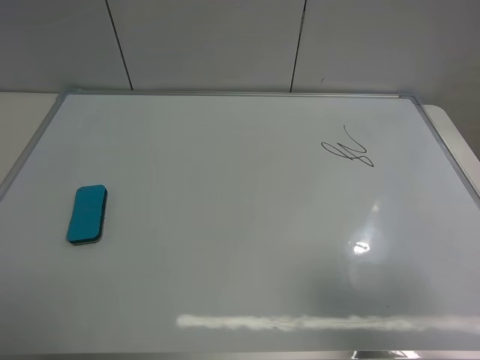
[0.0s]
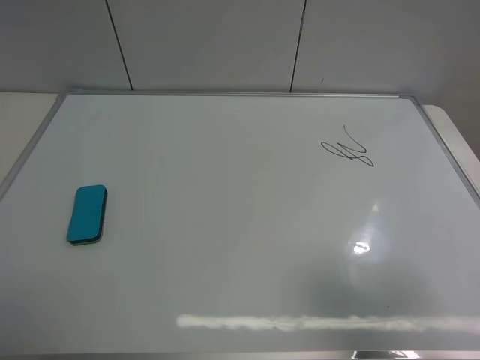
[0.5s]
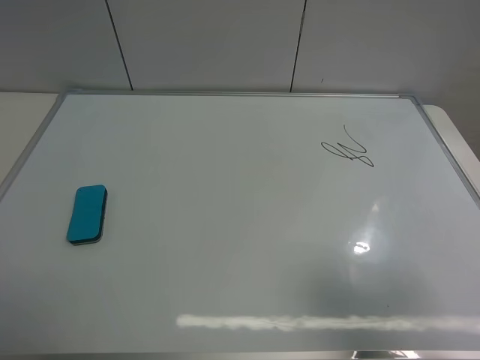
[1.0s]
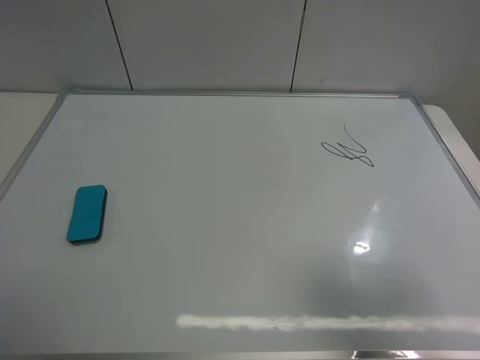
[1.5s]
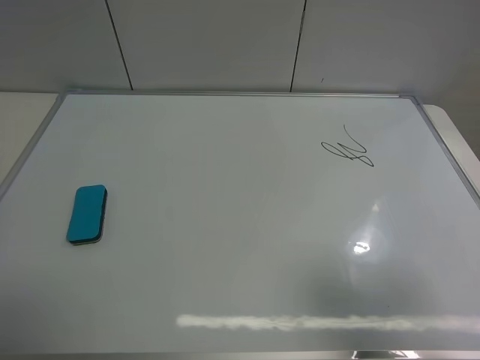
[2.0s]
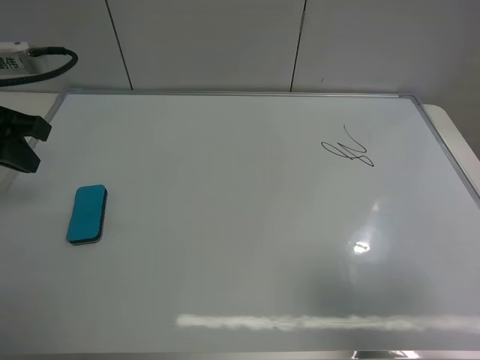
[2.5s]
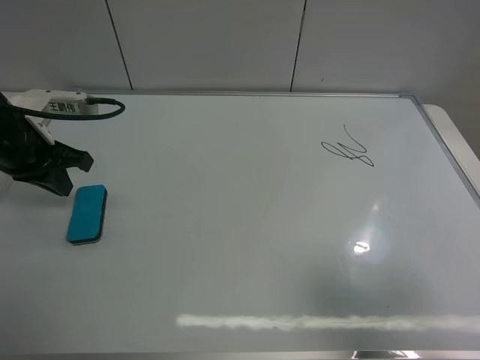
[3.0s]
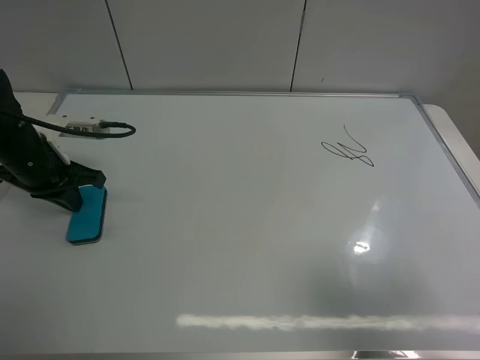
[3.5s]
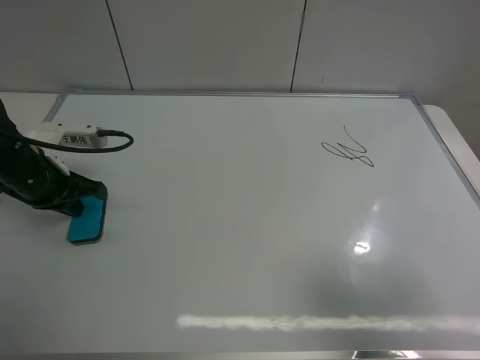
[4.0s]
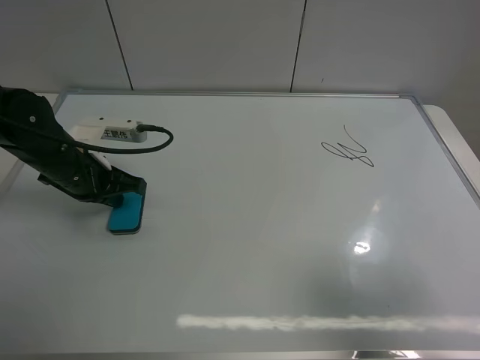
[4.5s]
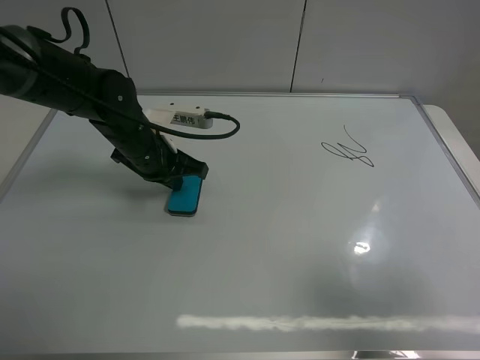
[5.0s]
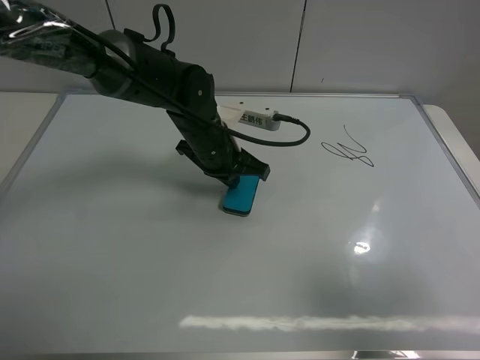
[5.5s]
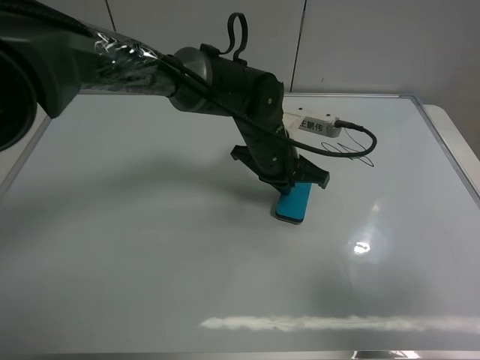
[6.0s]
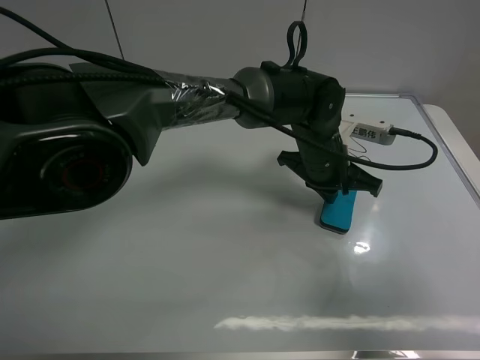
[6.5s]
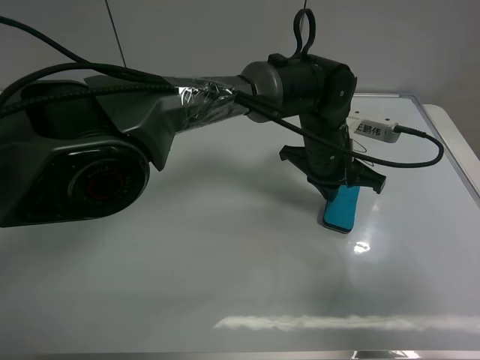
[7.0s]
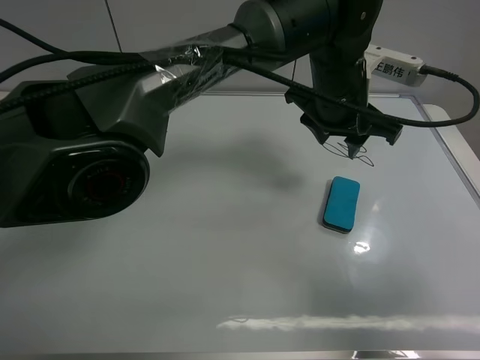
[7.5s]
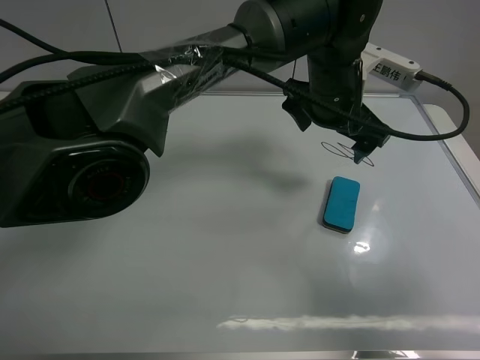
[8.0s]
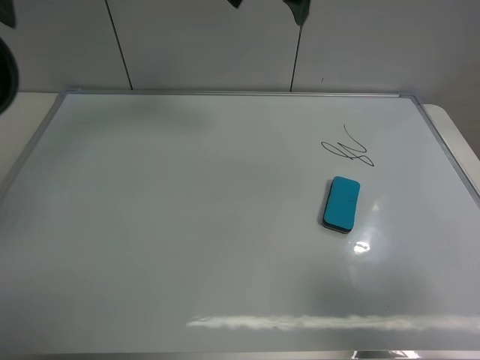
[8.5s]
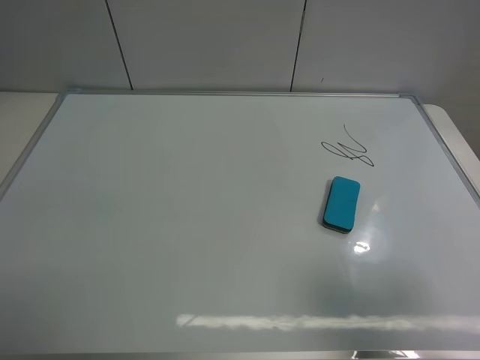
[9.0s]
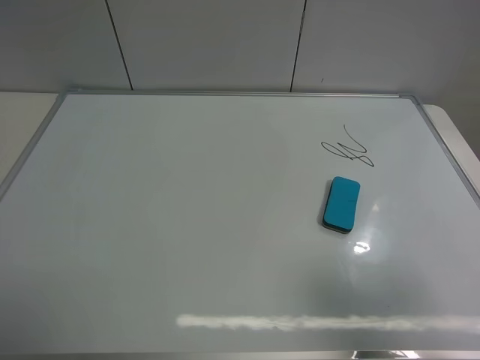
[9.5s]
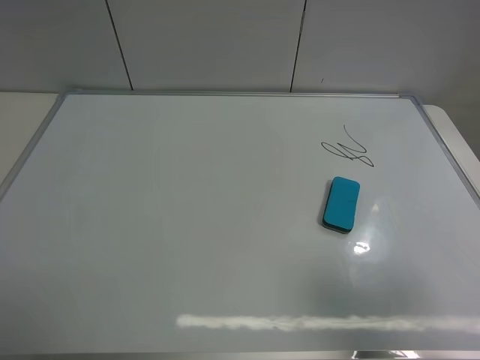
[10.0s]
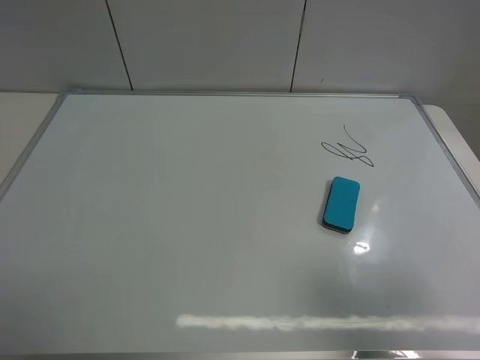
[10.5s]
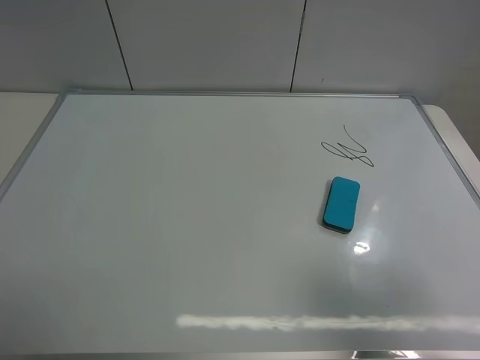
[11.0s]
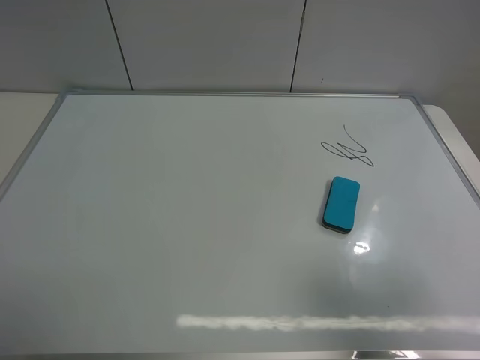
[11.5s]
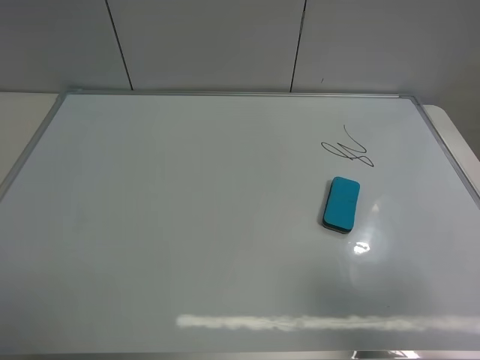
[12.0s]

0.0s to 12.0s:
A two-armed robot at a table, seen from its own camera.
Task of the whole recording: use the left gripper to place the eraser in the right, use the right gripper to pick up the eraser, wipe the notes on the whiteboard clean, and then put it down.
Step, 0.0s to 7.0s: Move the board eraser to the right of the whiteboard with left gripper.
2.0s to 4.0s: The left gripper is displaced downward and forward by about 25 cm.
4.0s to 6.0s: The left gripper shifts about 30 cm to the right.
6.0s to 8.0s: The left gripper is displaced upward and to the right by approximately 10 cm, and opens up.
8.0s to 10.0s: The left gripper heads to the left and backward, covering some 60 cm.

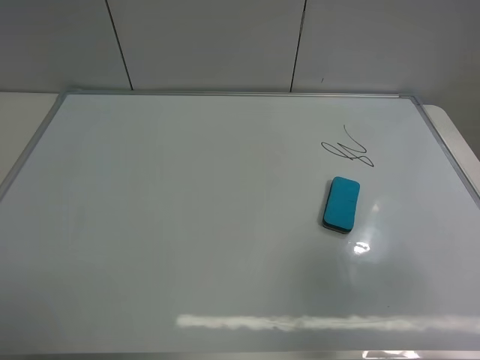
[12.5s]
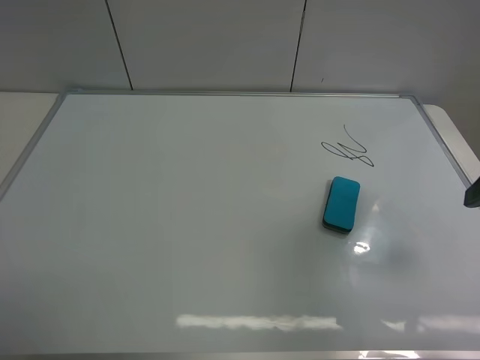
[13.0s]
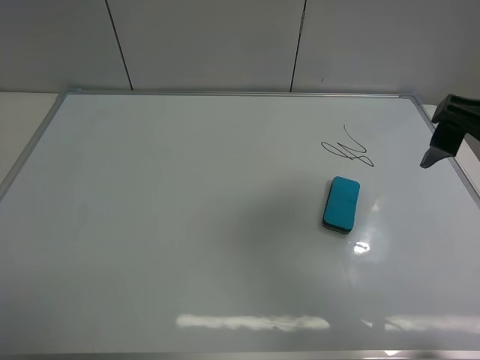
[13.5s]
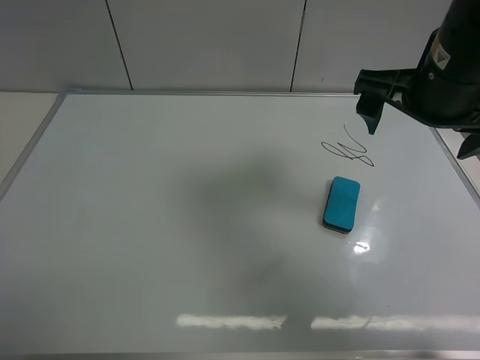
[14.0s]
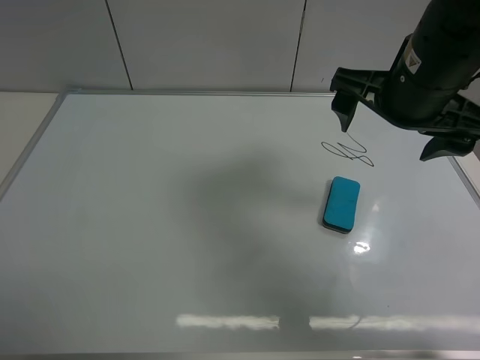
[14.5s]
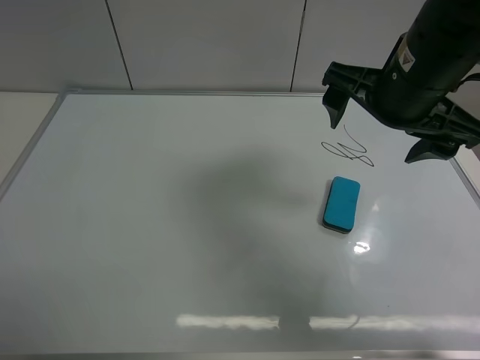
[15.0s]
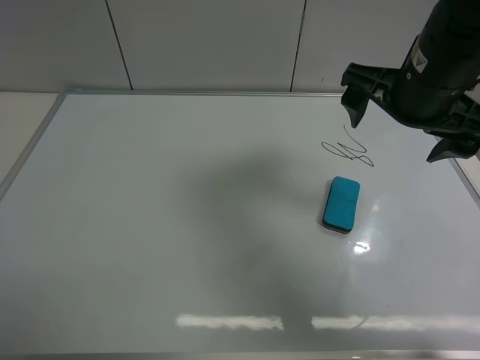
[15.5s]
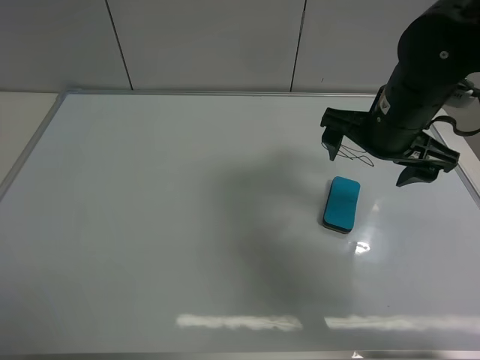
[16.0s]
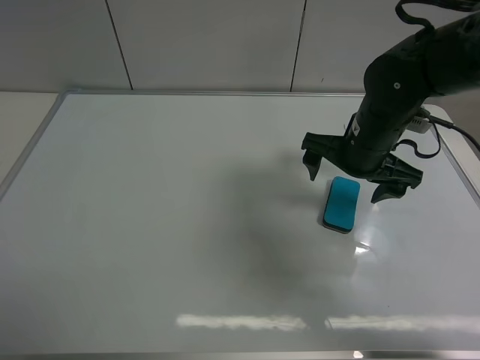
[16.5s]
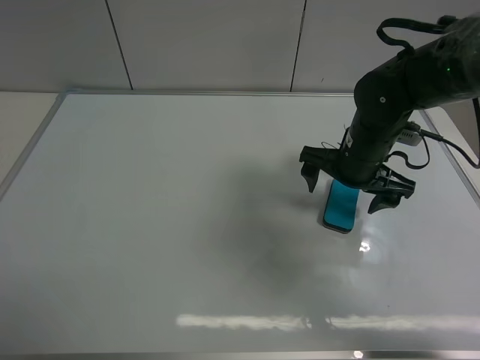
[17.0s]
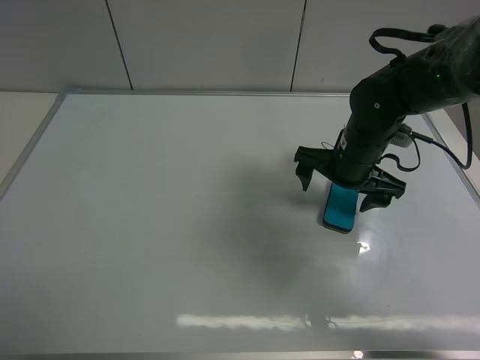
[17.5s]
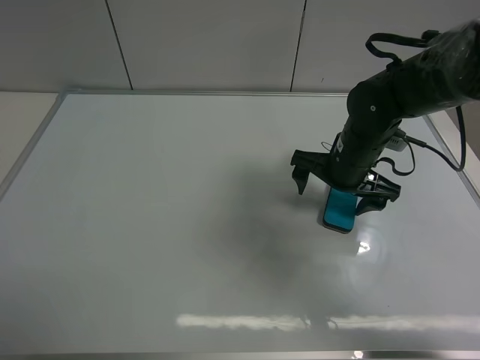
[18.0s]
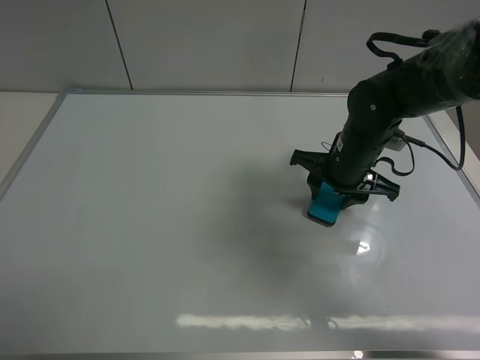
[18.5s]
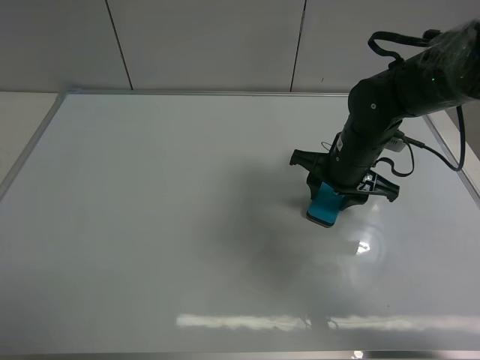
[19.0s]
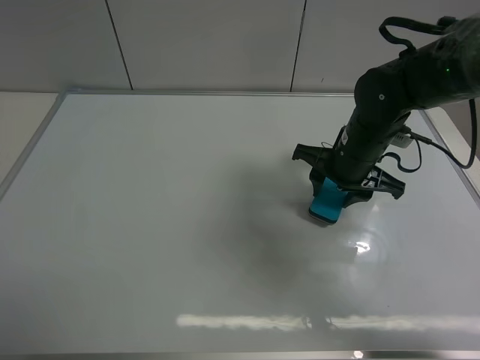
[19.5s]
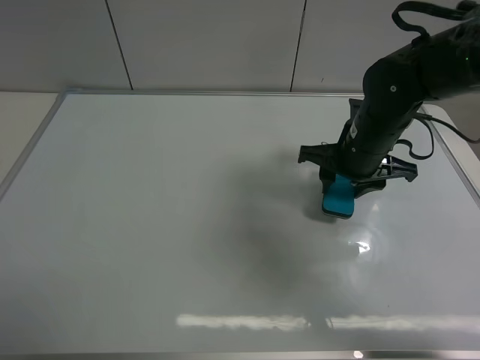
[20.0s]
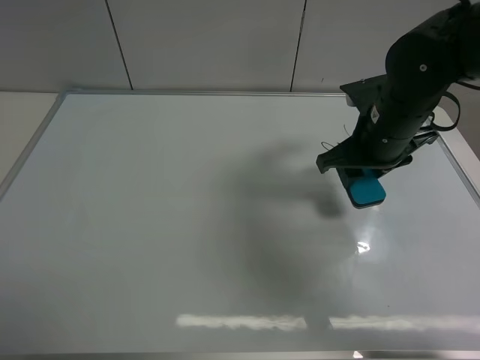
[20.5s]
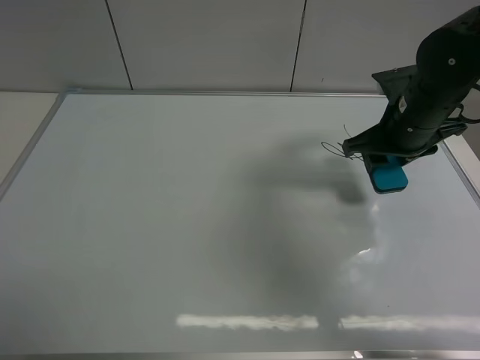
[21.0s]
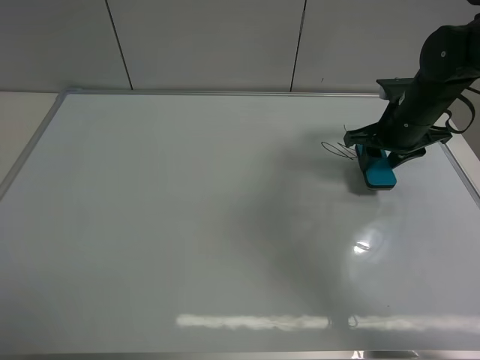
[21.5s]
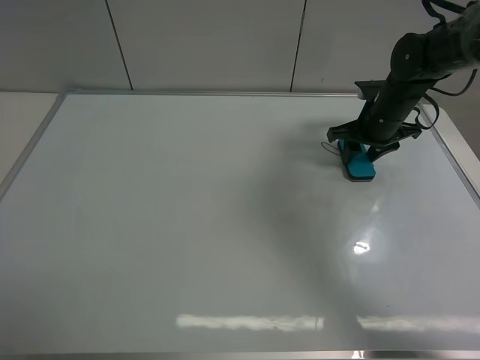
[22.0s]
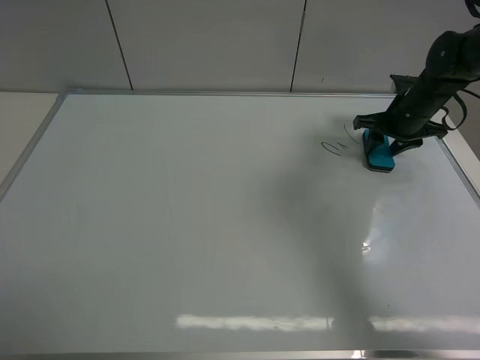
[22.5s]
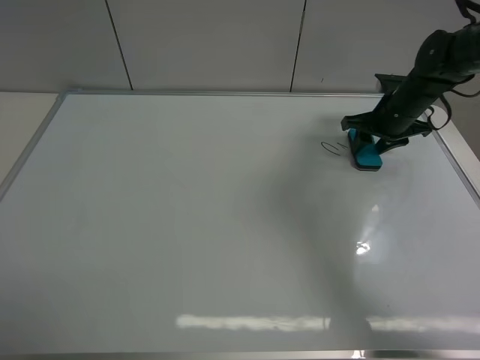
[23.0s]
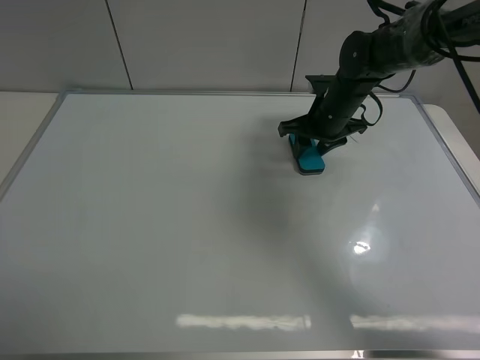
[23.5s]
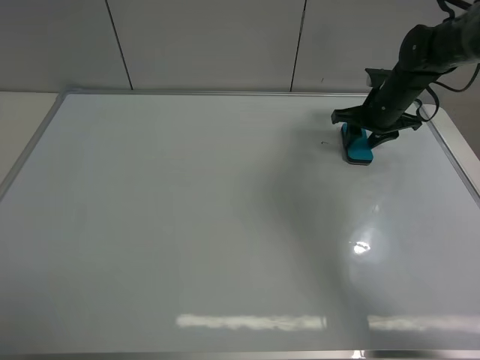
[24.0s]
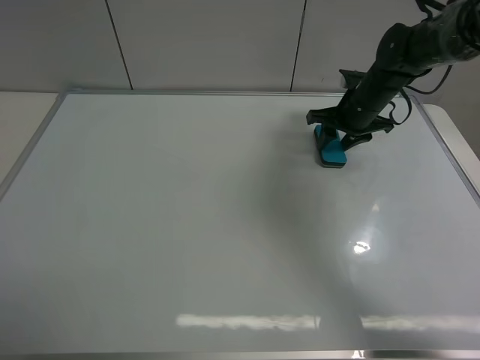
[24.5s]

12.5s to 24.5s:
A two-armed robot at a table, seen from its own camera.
Task of the whole recording: use the left gripper to place the eraser in the right, use the right gripper to pick up the eraser, wipe the notes on the whiteboard clean, and then put it down.
Step, 12.5s to 19.5s: Pick up the board eraser with right gripper.
12.5s to 14.5s: The right gripper goes some 25 cm forward and to the left.
14.5s to 16.5s: The right gripper goes roughly 10 cm downward.
16.5s to 18.5s: The right gripper closes.
18.5s to 20.5s: The right gripper is displaced upward by some 5 cm.
20.5s to 22.5s: The right gripper moves forward, to the right and downward, approximately 20 cm.
22.5s to 24.5s: The right gripper goes left and right, about 15 cm each way, reversing 2 times.

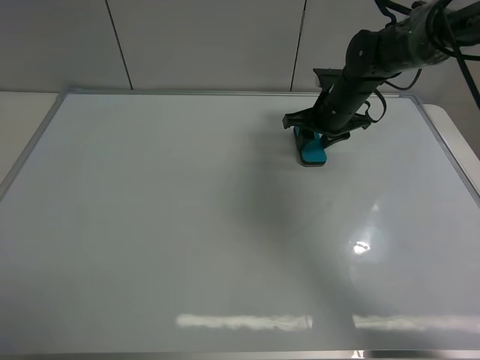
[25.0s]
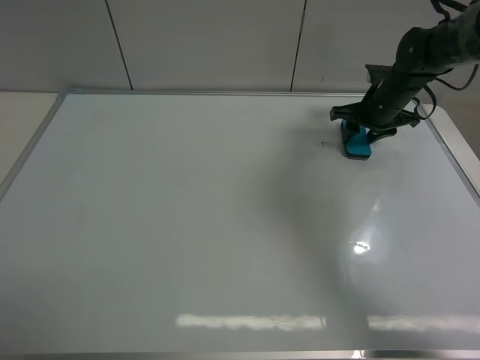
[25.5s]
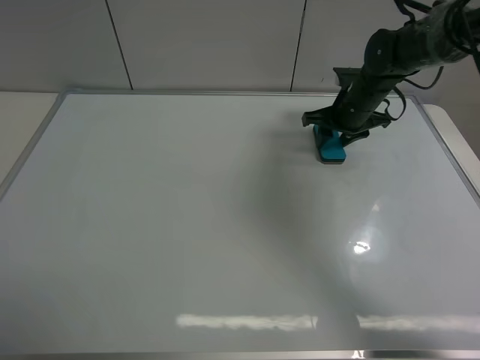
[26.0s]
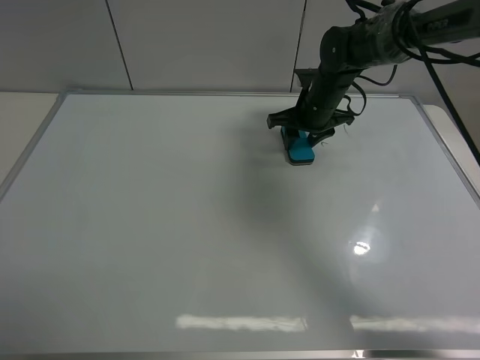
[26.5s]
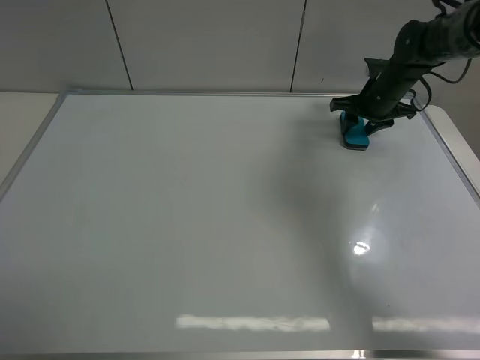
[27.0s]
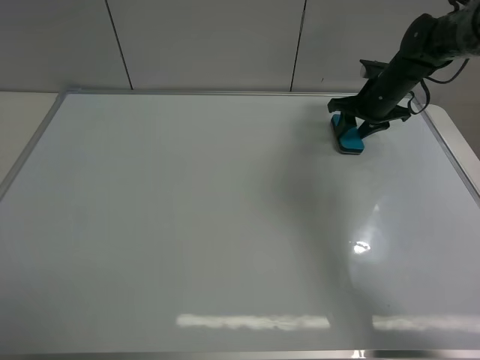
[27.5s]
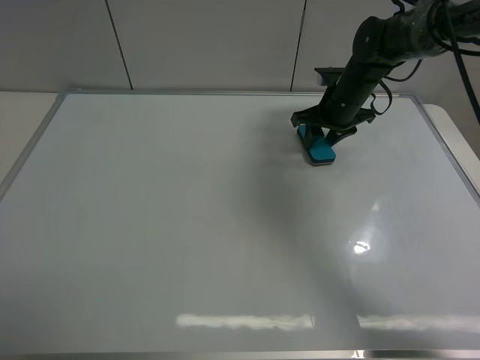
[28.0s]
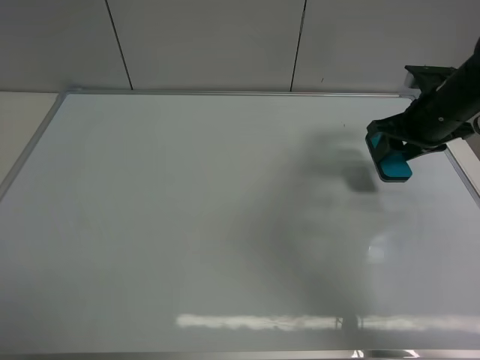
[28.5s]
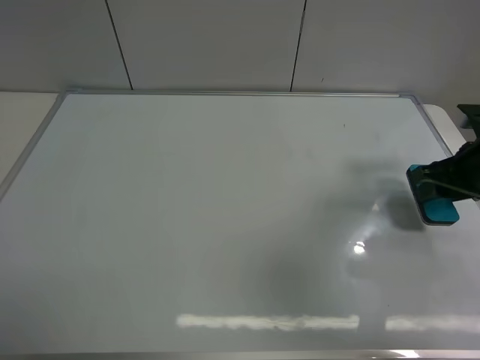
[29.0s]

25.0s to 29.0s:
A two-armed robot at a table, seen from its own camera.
Task of the whole recording: use the left gripper to place the eraser in the right, use the right gripper to pick up the eraser, wipe the notes on the whiteboard clean, and then put it down.
Step, 25.0s to 27.5s: Wipe off the writing on the board with right gripper.
25.0s to 27.0s: The right gripper moves left and right over roughly 15 cm, changing direction 2 times.
27.0s to 29.0s: The right gripper moves backward, about 20 cm.
